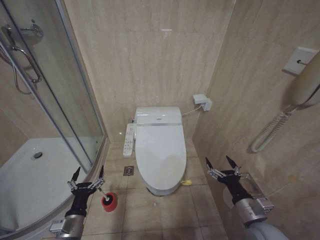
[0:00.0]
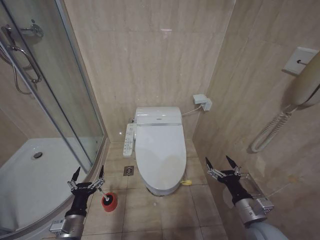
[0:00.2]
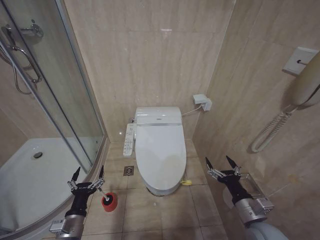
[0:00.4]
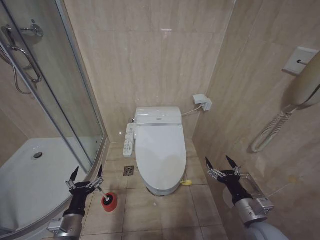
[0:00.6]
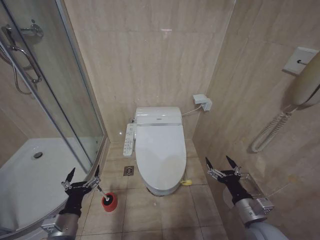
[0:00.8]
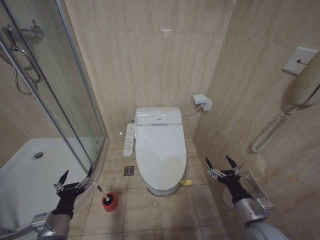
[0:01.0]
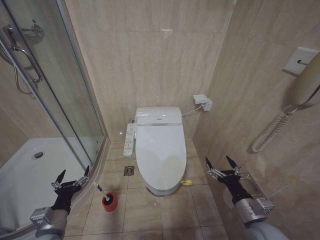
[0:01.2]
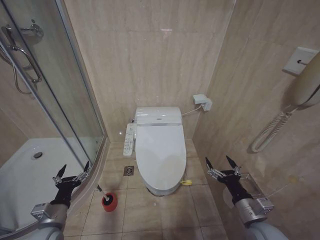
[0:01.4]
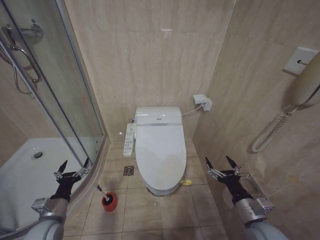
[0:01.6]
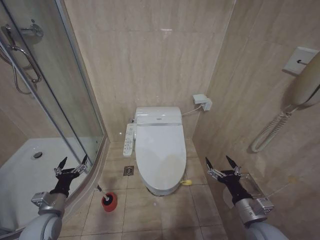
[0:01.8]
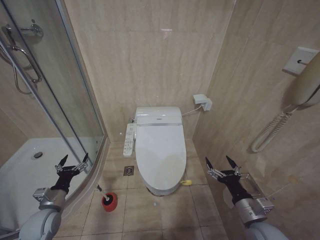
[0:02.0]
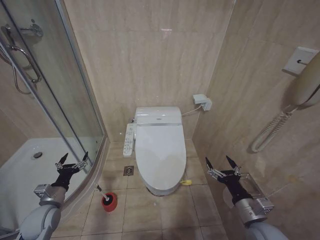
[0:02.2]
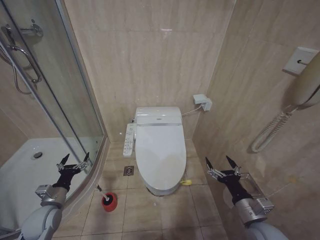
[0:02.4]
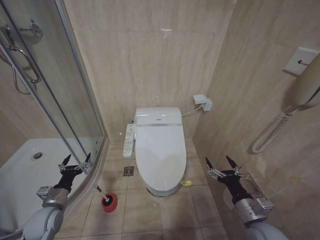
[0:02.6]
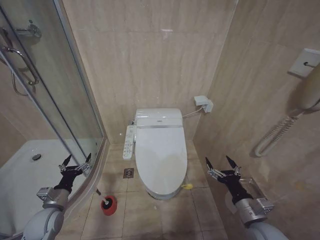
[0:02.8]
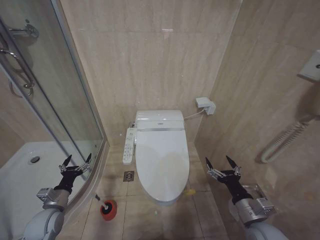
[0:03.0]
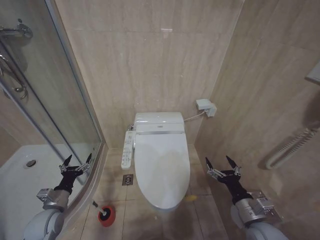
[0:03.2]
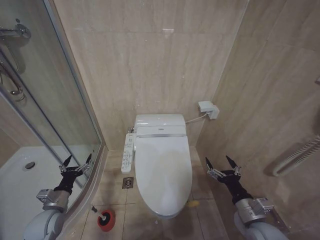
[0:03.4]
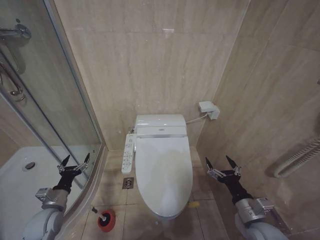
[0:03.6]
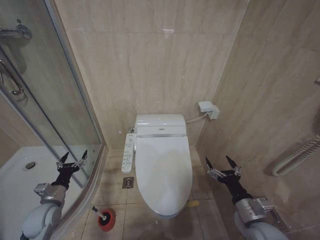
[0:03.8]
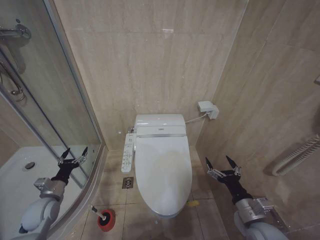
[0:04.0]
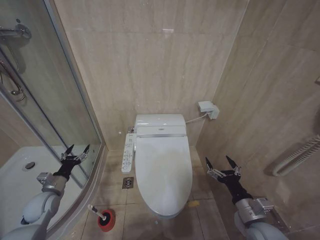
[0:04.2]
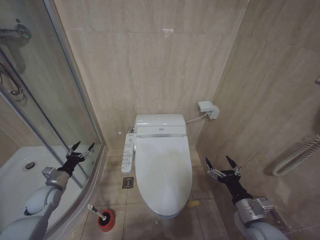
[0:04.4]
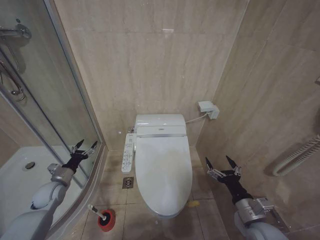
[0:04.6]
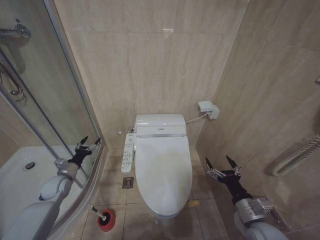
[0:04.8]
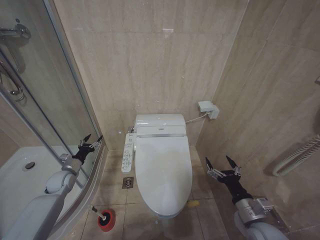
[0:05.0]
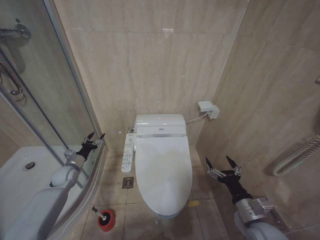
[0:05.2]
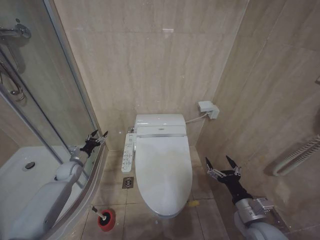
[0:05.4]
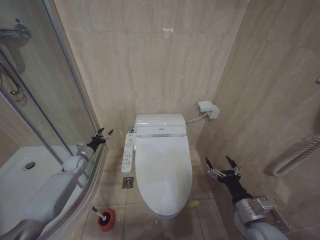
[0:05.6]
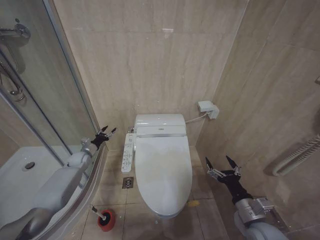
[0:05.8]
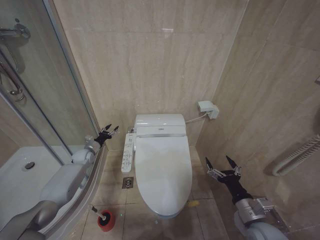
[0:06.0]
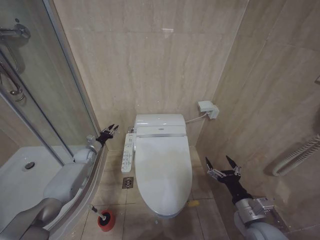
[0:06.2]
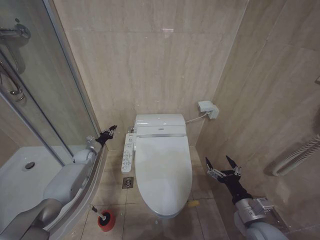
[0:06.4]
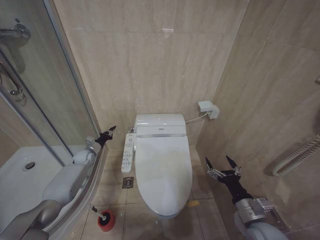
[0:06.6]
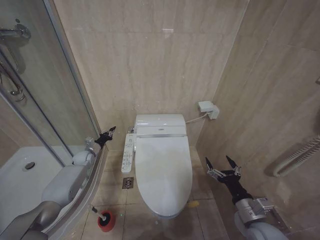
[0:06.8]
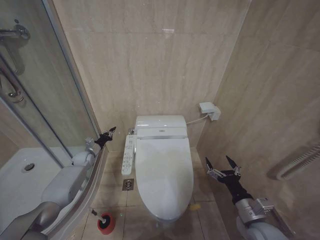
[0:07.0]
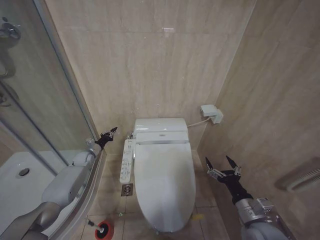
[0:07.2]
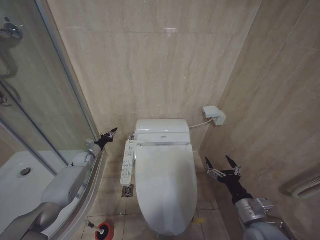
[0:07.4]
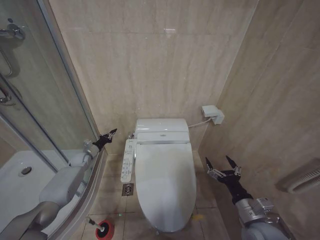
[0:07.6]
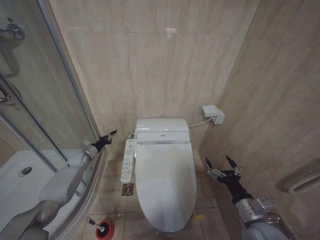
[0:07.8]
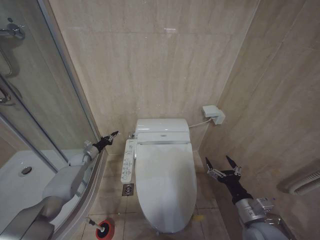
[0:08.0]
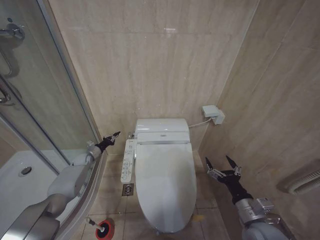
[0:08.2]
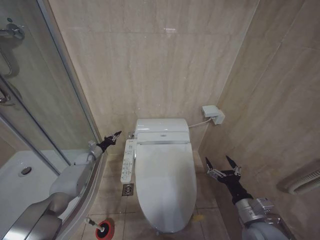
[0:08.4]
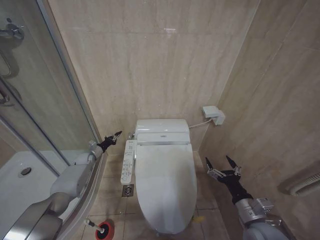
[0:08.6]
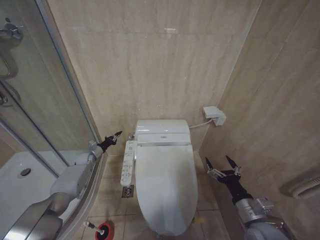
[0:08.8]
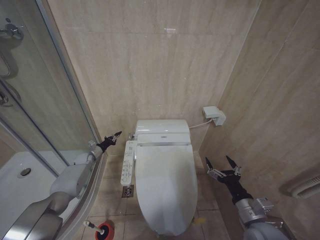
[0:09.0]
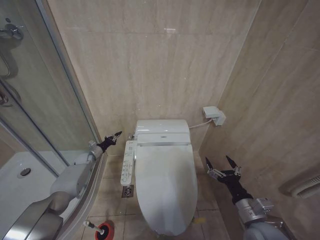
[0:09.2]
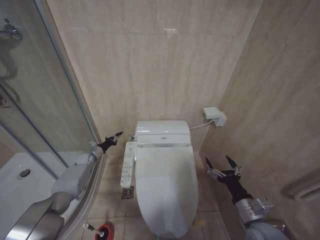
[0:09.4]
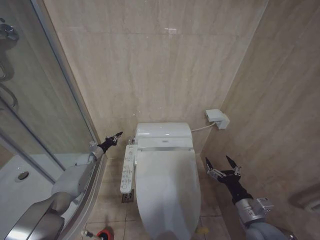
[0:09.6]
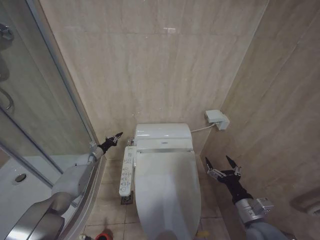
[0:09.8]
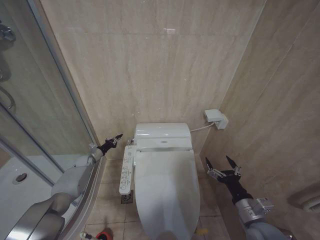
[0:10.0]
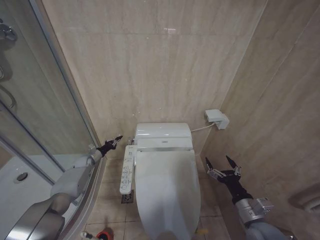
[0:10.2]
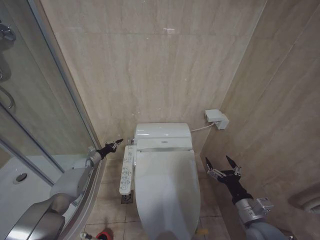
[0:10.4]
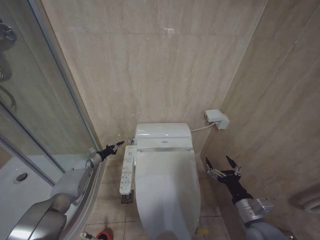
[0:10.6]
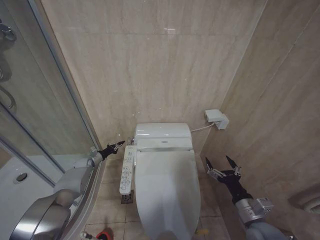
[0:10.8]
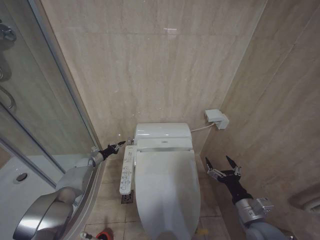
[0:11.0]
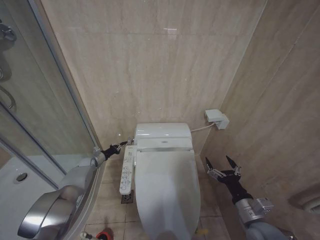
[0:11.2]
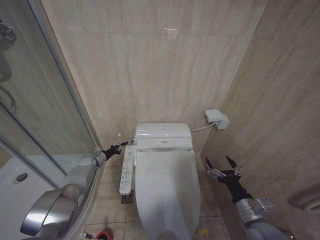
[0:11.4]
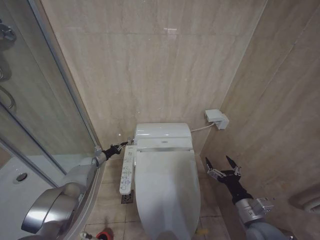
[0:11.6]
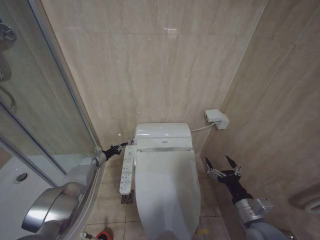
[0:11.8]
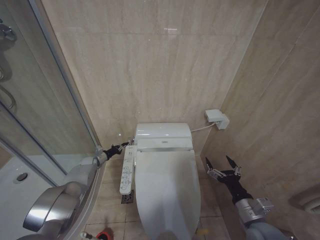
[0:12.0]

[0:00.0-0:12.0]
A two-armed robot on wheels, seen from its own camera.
Task of the whole recording: Open the toilet lid, clean the toilet bowl with a toilet brush, close the toilet lid, and flush.
0:00.0 to 0:01.6: The left gripper travels to the left by some 5 cm.
0:01.6 to 0:03.0: The left gripper shifts by approximately 5 cm.
0:03.0 to 0:04.4: The left gripper moves forward, about 5 cm.
0:04.4 to 0:06.0: The left gripper moves forward, roughly 20 cm.
0:06.0 to 0:07.6: The left gripper closes its fingers.
0:07.6 to 0:10.4: The grippers move only a little.
0:10.4 to 0:12.0: The grippers stay close to where they were, moving slightly.

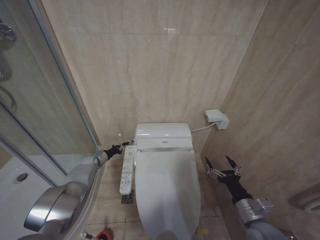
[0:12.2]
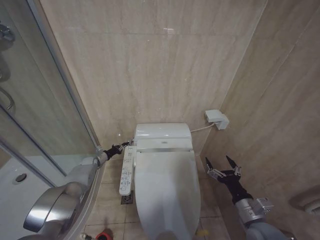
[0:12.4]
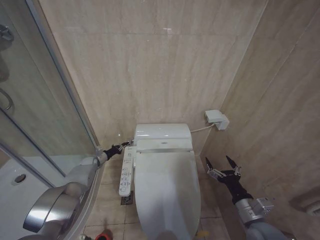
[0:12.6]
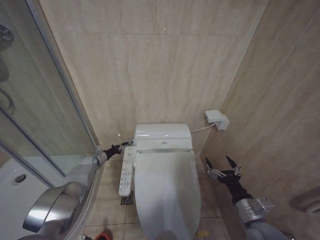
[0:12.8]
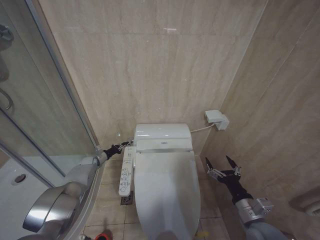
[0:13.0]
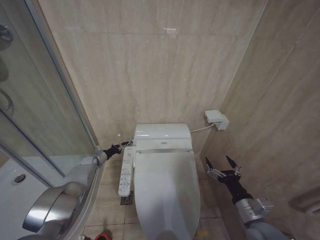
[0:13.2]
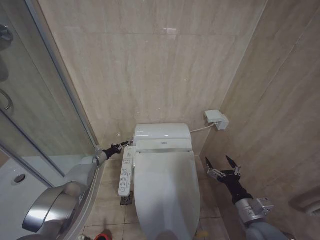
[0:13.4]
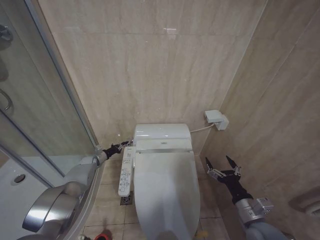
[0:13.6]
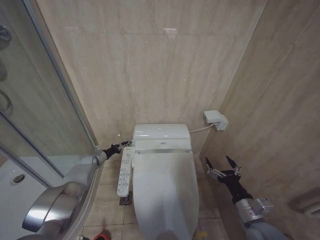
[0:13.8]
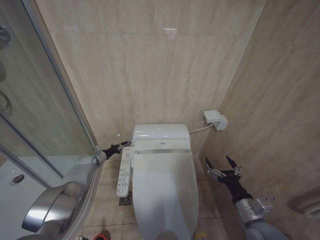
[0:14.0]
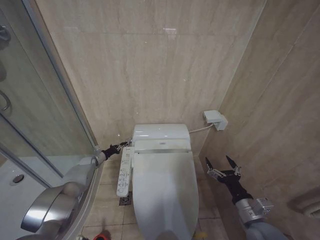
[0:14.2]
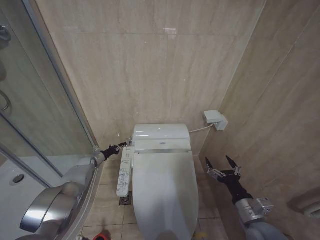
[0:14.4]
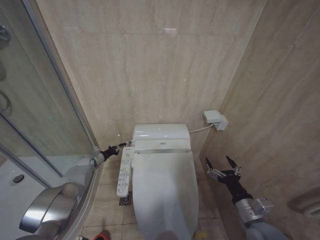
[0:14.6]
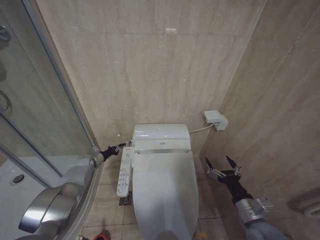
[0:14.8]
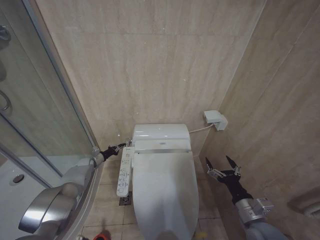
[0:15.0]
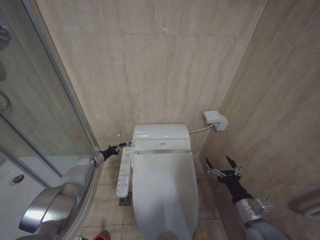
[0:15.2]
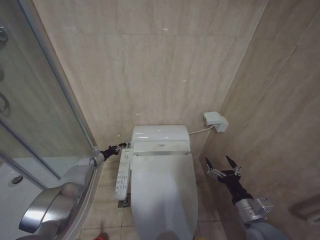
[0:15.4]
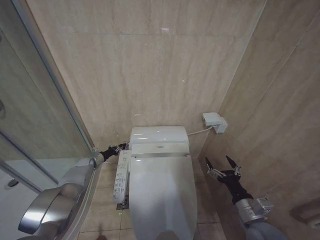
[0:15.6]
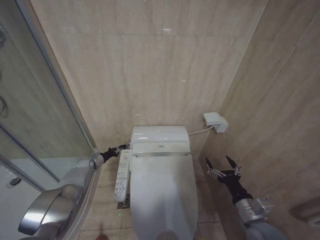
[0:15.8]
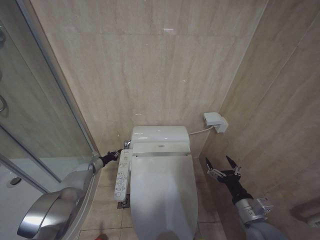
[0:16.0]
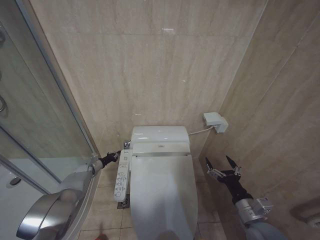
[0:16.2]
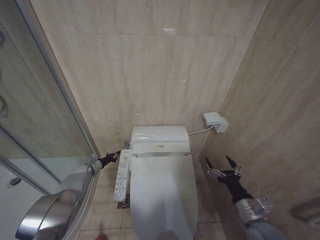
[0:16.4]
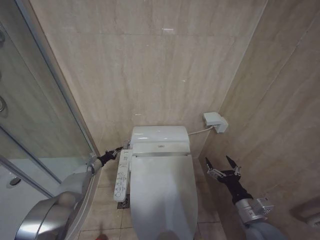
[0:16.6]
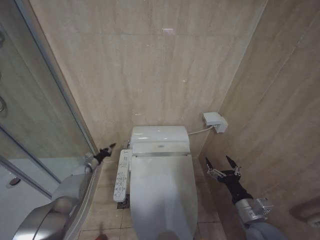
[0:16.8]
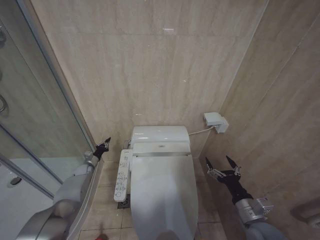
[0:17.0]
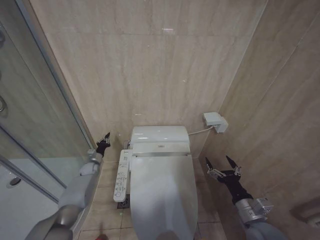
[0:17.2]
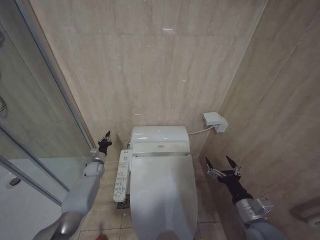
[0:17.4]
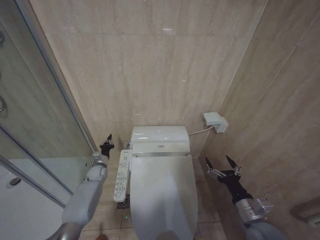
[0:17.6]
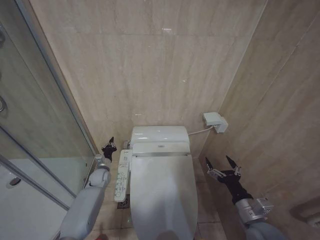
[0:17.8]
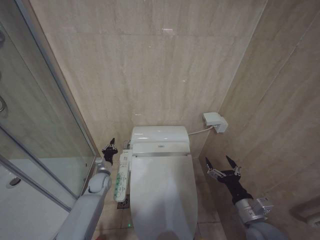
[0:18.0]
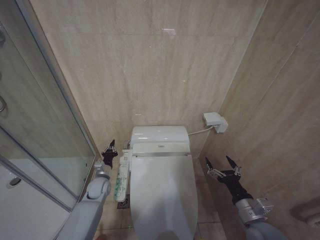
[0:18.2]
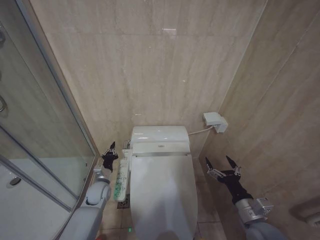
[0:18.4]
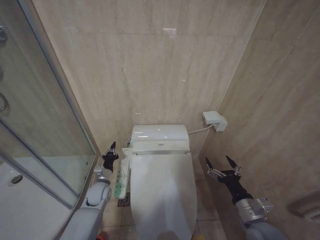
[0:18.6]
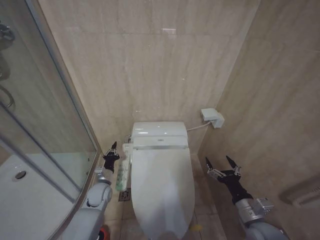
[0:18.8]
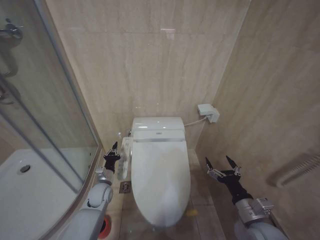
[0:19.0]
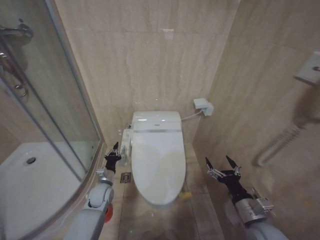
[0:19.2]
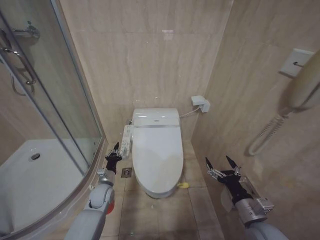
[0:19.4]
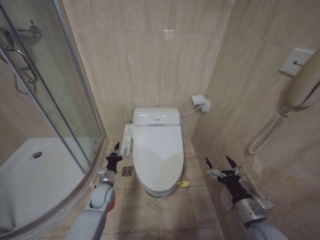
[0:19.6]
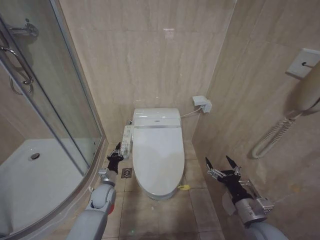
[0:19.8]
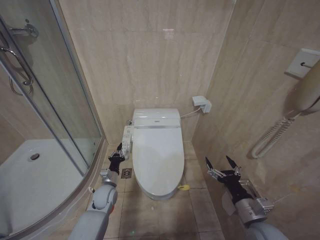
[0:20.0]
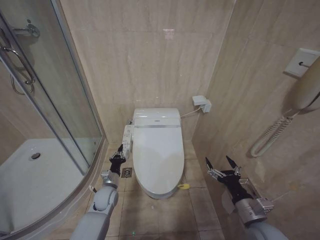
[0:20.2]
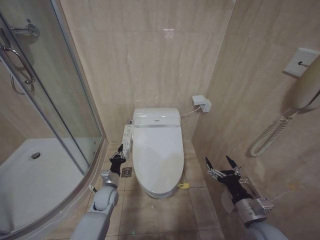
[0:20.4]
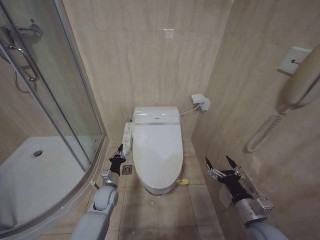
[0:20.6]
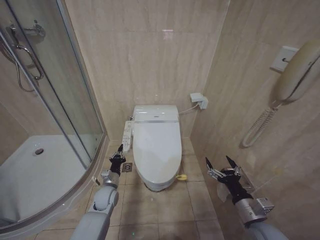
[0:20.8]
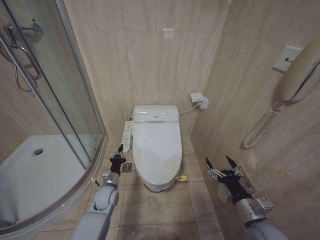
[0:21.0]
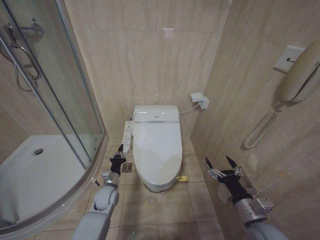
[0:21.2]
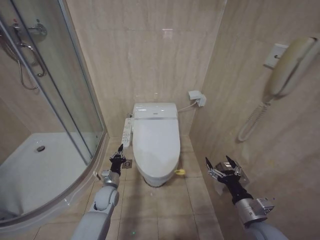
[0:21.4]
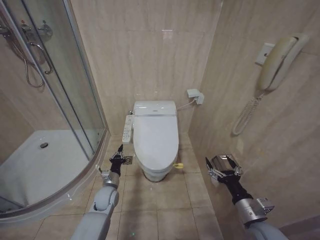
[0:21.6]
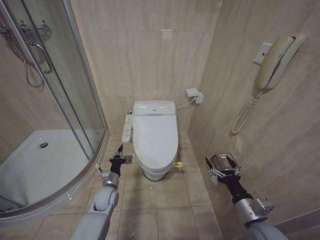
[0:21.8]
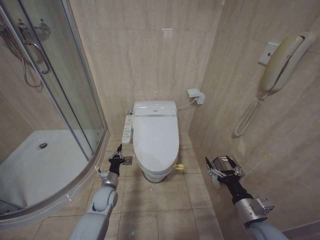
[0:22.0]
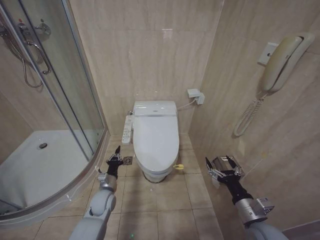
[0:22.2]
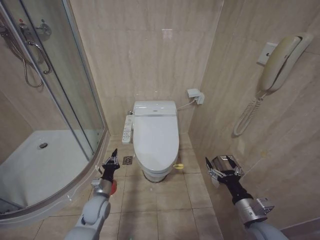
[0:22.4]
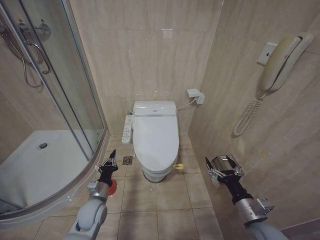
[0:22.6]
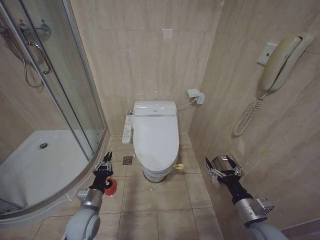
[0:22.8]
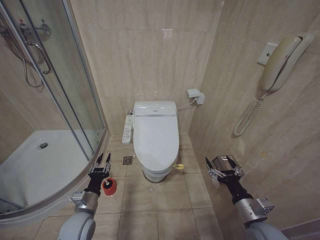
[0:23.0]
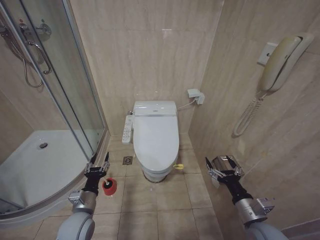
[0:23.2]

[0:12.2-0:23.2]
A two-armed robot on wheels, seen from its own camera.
Task of the whole recording: Open the toilet lid, clean the toilet bowl with a toilet brush, close the toilet lid, and flush.
0:12.2 to 0:13.8: The two grippers keep their place.
0:13.8 to 0:15.4: There are only small adjustments of the grippers.
0:17.0 to 0:18.4: The left gripper shifts approximately 20 cm to the right and backward.
0:20.0 to 0:21.6: Both grippers stay about where they are.
0:21.6 to 0:23.2: The left gripper is displaced backward and upward by some 15 cm, and opens its fingers.
